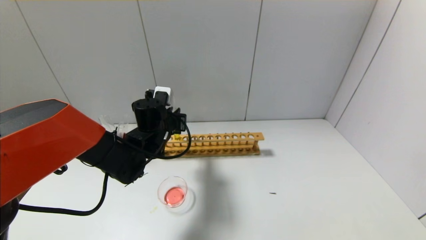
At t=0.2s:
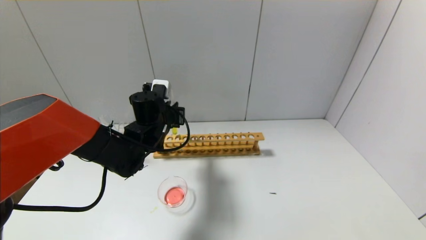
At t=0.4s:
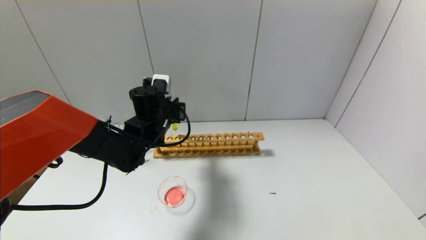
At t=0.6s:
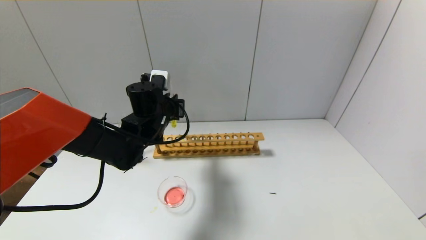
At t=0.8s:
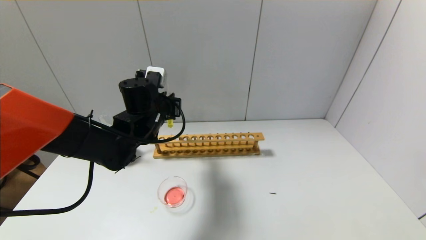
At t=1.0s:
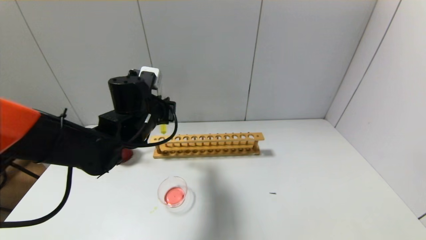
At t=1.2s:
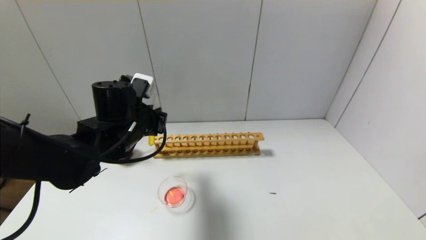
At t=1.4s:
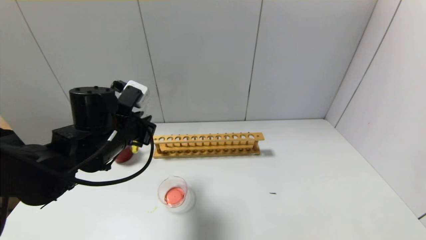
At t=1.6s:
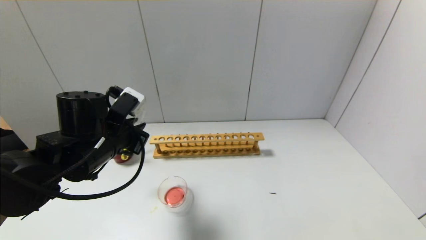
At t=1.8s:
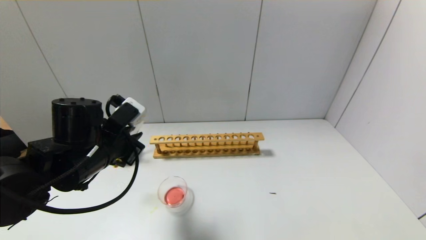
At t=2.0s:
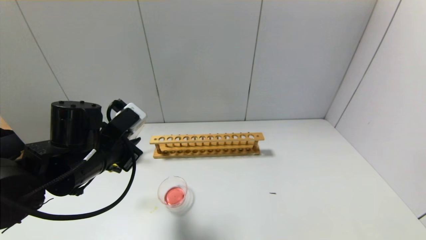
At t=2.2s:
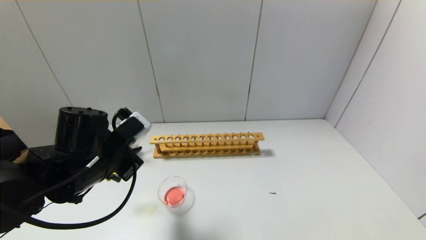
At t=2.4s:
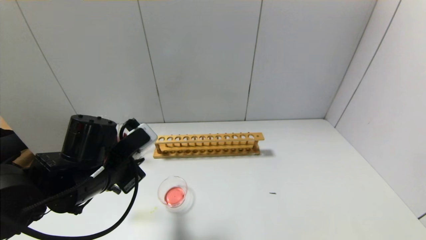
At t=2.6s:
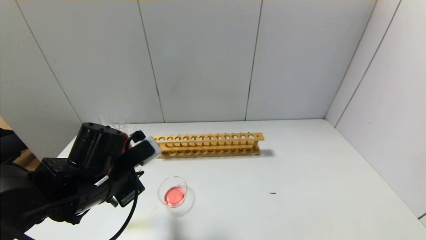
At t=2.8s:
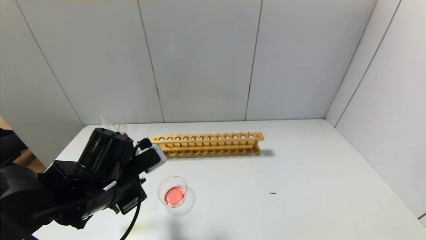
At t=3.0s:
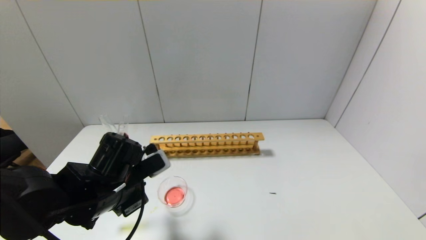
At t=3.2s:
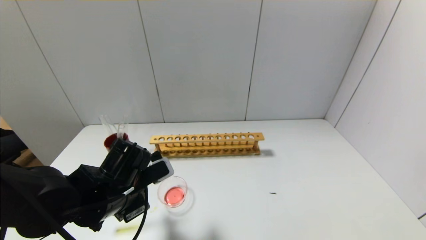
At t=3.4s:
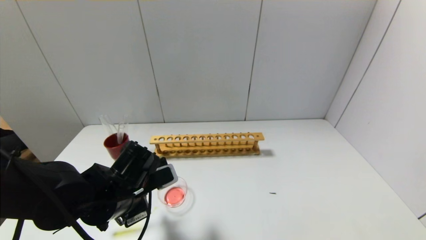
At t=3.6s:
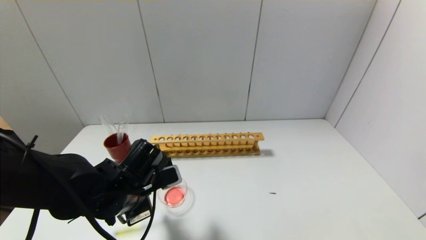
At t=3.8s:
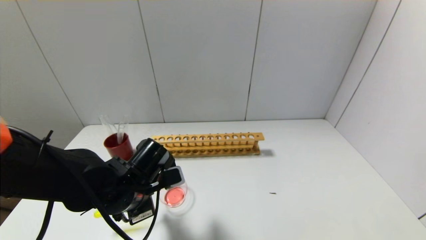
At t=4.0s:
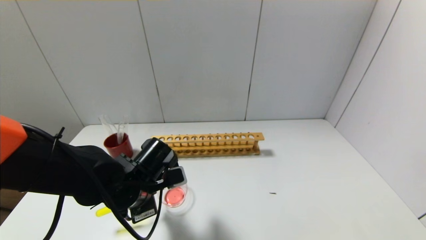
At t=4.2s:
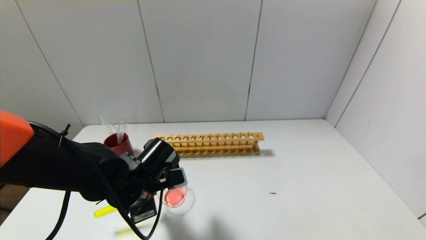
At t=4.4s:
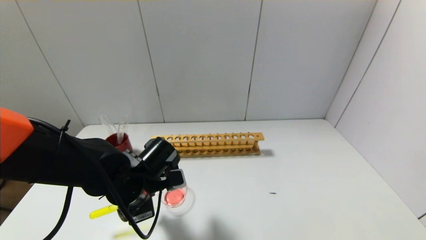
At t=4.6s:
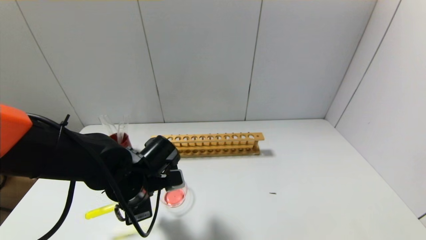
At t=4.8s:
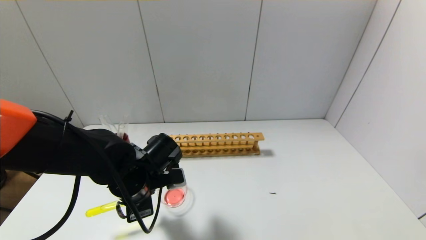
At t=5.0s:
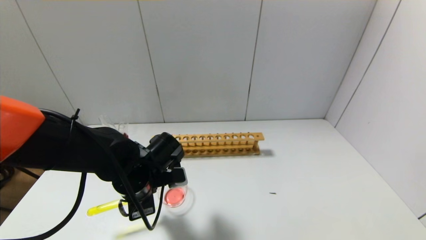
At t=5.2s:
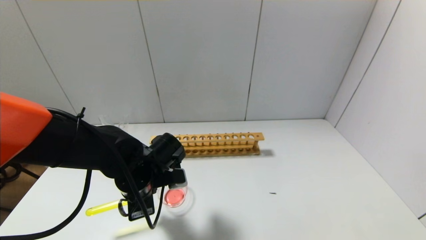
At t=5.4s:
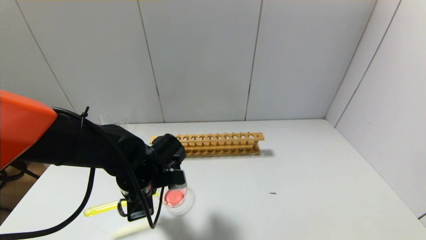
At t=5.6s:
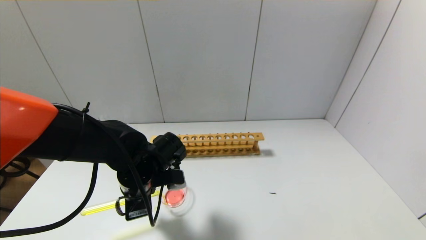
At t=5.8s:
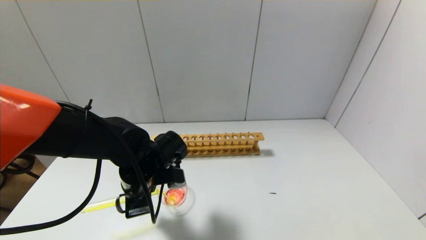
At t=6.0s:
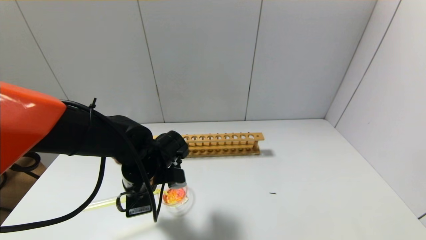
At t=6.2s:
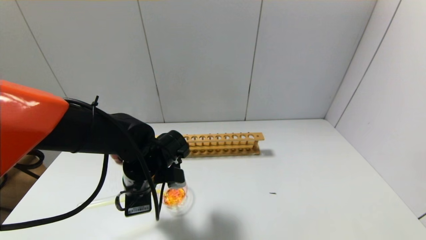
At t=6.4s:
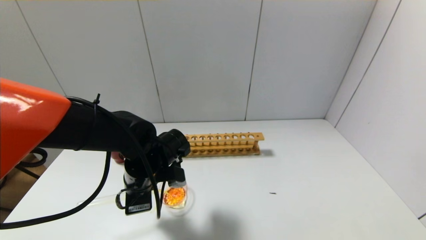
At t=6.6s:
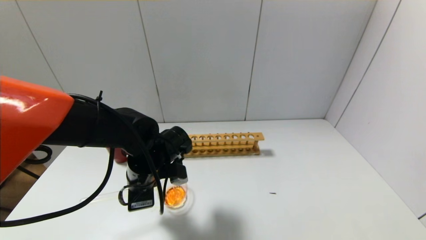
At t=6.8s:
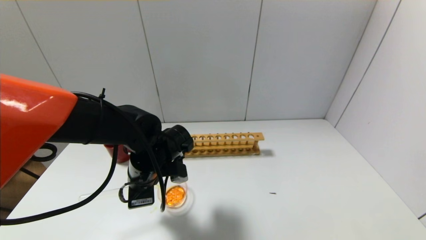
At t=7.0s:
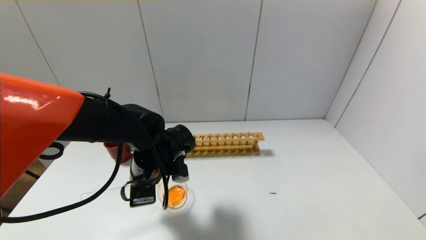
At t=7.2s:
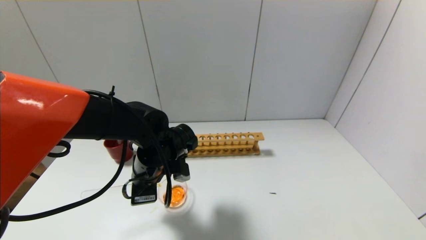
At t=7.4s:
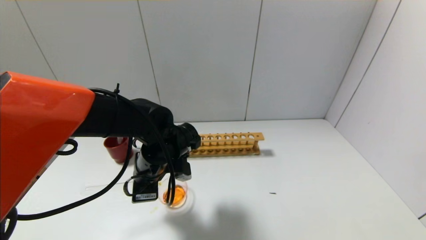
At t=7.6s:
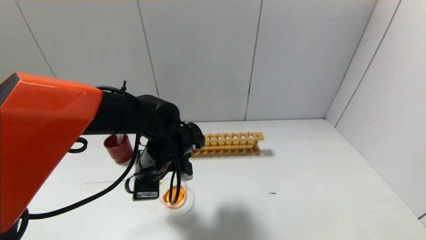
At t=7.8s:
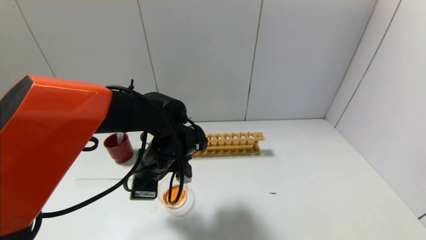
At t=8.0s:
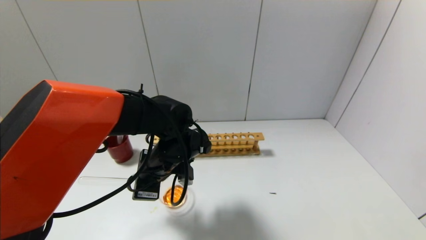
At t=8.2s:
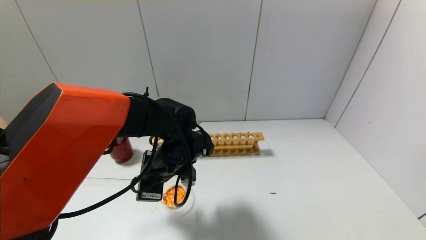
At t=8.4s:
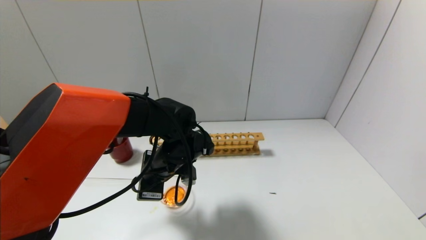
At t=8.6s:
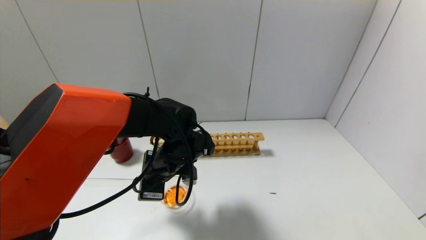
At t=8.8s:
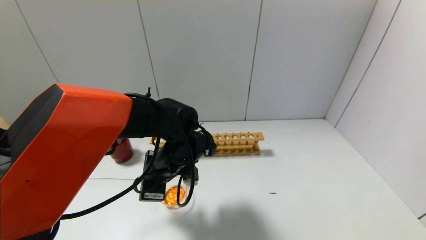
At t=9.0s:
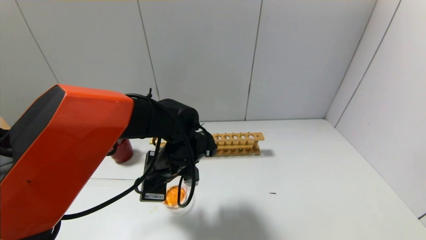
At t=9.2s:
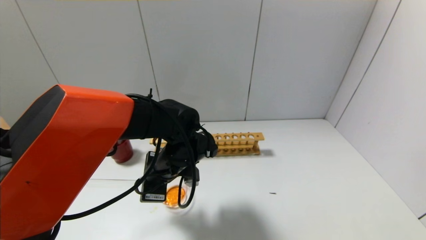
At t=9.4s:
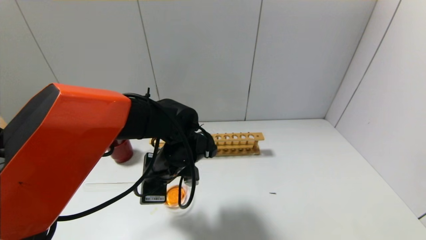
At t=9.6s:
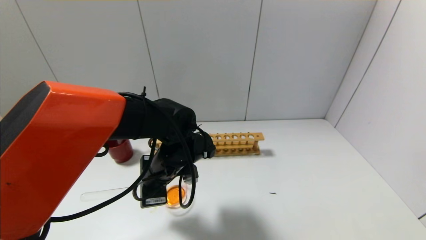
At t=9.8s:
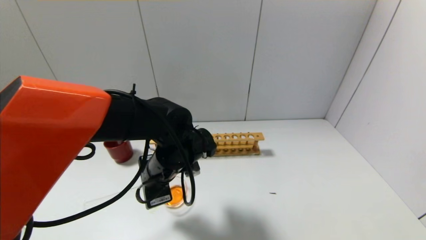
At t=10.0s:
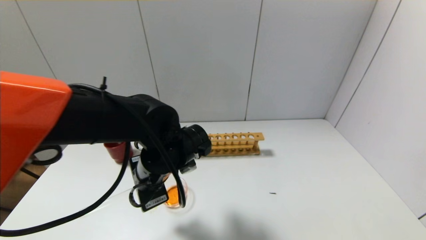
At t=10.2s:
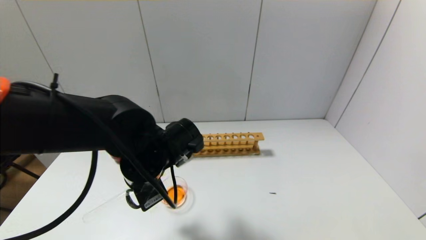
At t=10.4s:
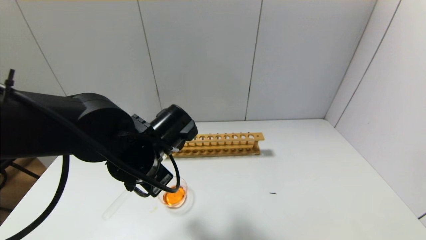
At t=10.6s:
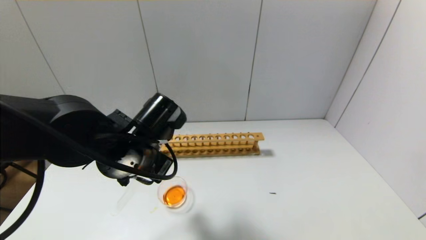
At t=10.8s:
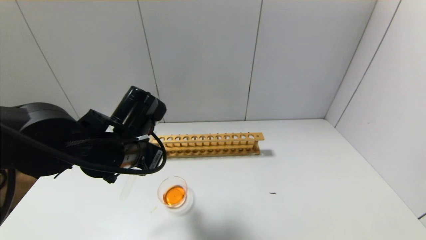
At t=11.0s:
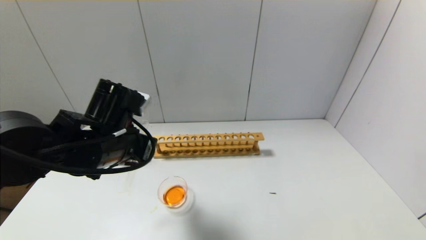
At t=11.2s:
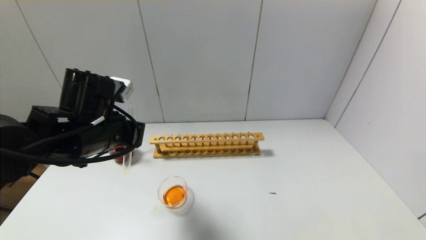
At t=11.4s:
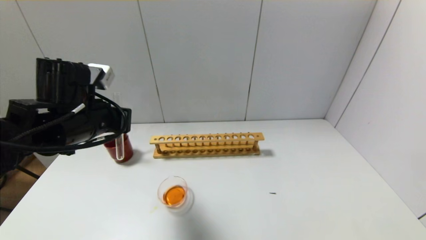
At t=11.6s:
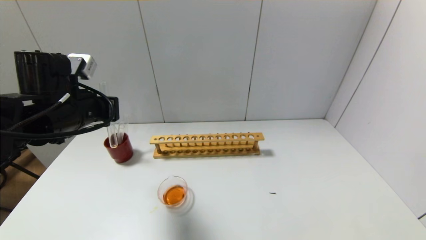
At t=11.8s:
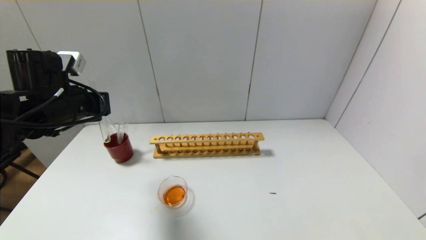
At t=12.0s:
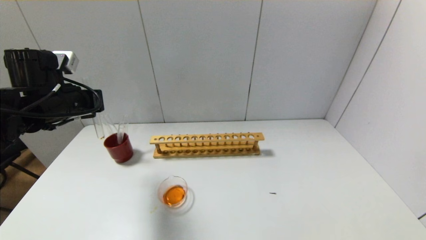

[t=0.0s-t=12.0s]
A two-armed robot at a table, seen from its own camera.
Step, t=0.0s to t=9.6s: Pour the yellow reagent into the graduated cylinder with the left gripper.
t=0.0s to t=1.6s: The left gripper heads backward and to the left, covering roughly 10 cm.
t=1.6s to t=3.0s: The left gripper moves downward, about 5 cm.
t=4.4s to t=6.0s: The grippers move only a little.
t=6.0s to t=9.0s: The grippers stay close to where they were, moving slightly.
t=9.0s to t=10.4s: The left gripper goes roughly 5 cm upward and backward.
t=10.4s to t=12.0s: The left gripper shifts some 20 cm to the left and forward.

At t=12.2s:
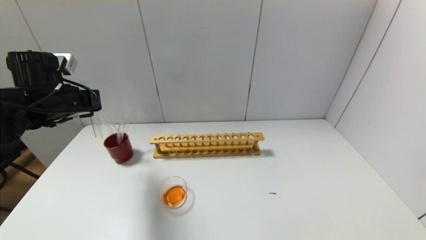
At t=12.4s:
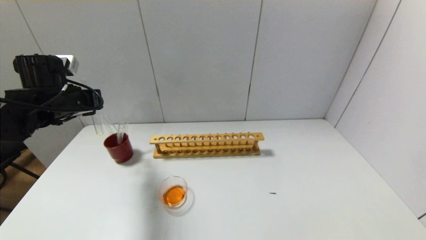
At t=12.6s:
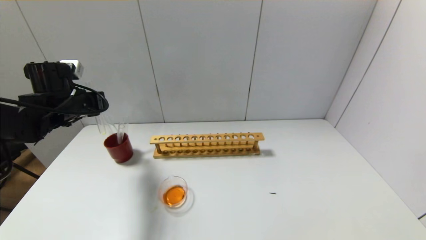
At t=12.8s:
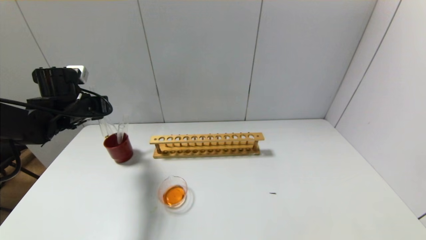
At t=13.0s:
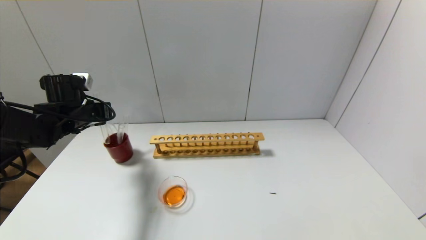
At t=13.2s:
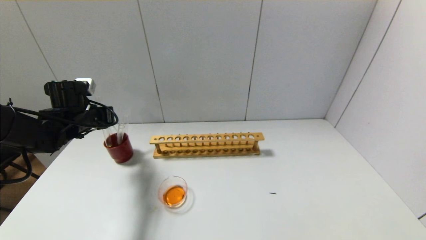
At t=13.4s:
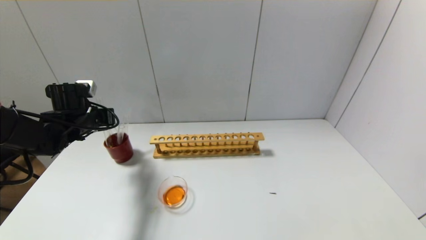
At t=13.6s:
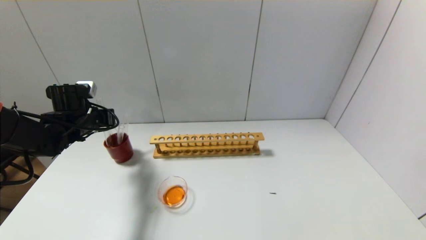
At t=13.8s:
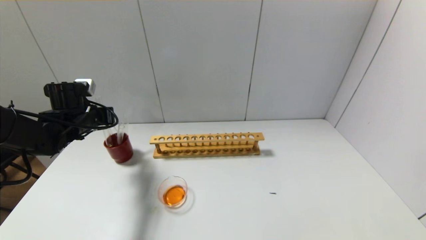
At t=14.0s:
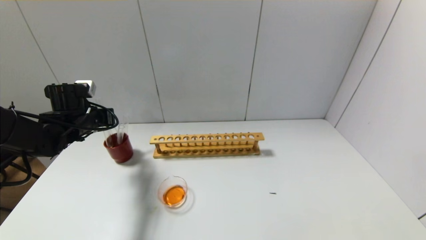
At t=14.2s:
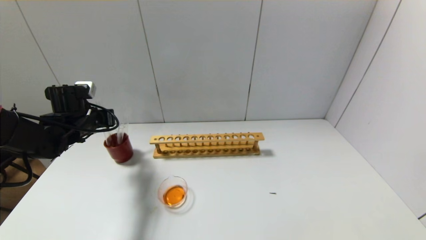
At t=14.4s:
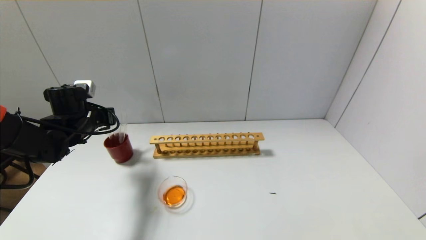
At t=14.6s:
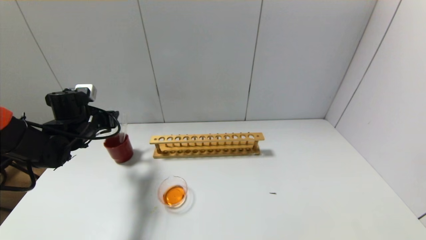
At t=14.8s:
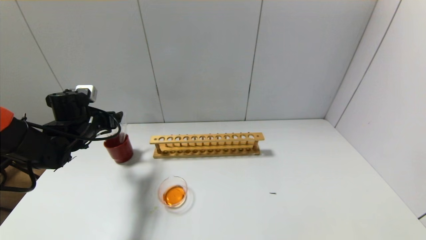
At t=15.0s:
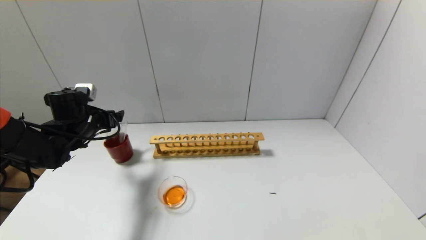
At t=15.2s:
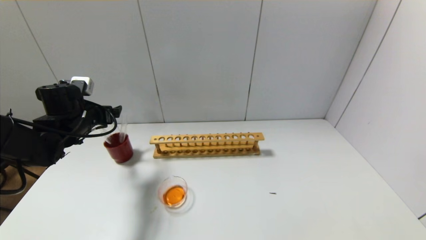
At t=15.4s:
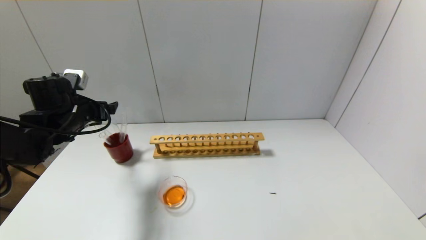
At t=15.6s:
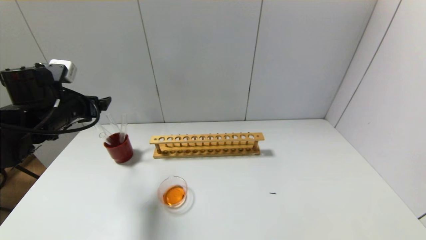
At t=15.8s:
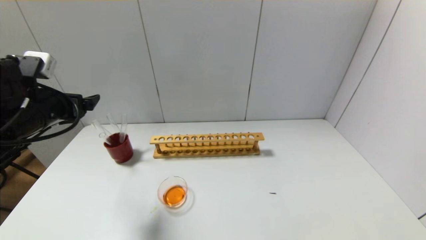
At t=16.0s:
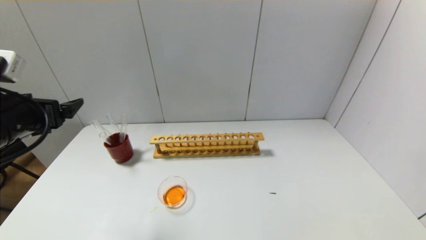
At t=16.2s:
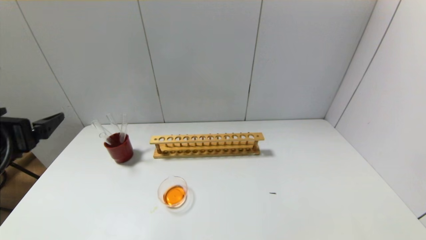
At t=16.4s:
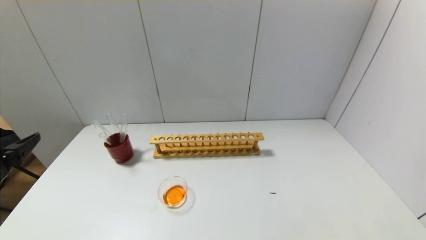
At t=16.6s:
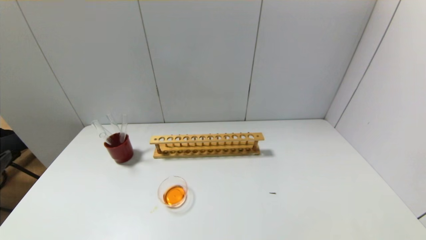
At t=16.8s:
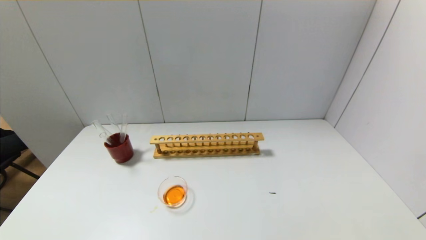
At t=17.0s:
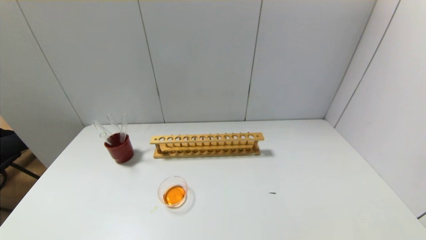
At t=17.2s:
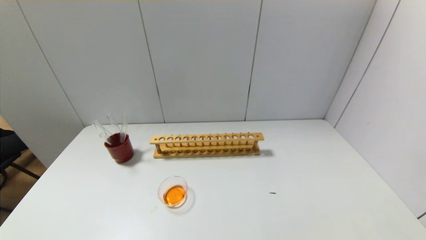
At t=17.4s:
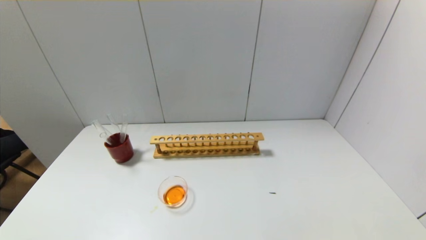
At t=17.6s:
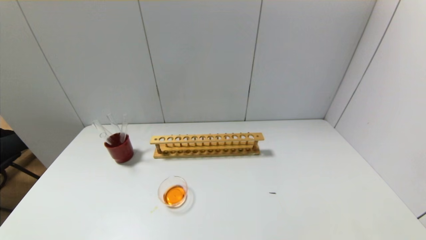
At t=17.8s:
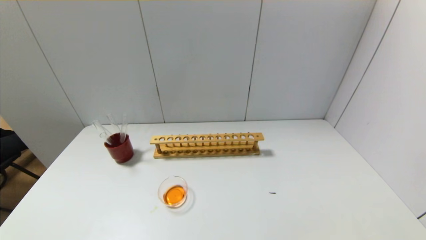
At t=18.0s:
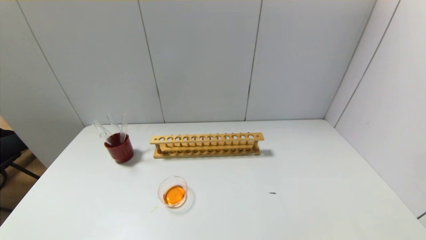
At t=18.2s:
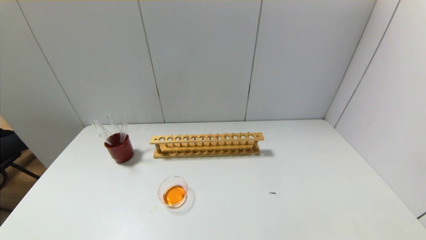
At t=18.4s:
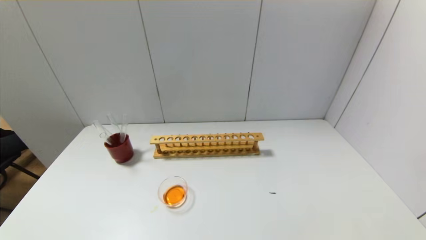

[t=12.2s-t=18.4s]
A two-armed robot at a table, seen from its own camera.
Step, t=12.2s to t=14.4s: Place the test tube into the brown cup with the left gripper.
t=12.2s to t=13.8s: The left gripper heads downward and forward, covering about 10 cm.
t=13.8s to t=15.4s: The left gripper opens up.
t=15.4s to t=16.8s: The left gripper moves backward, roughly 30 cm.
